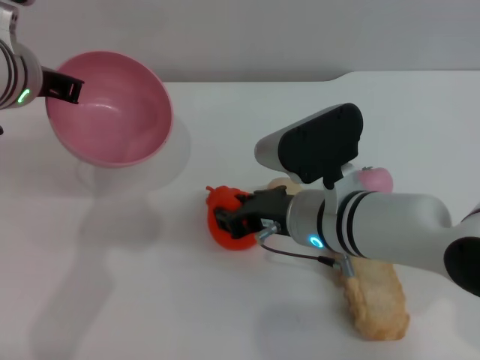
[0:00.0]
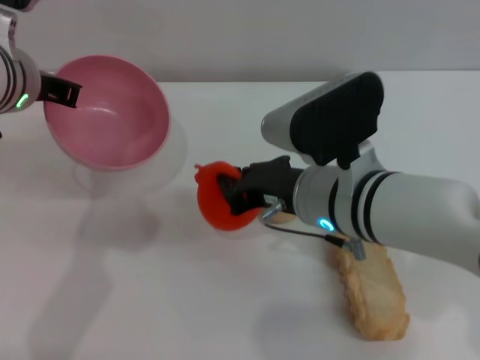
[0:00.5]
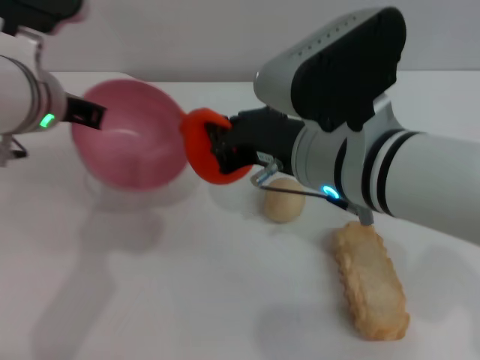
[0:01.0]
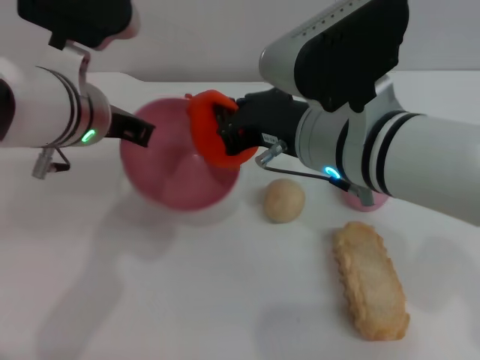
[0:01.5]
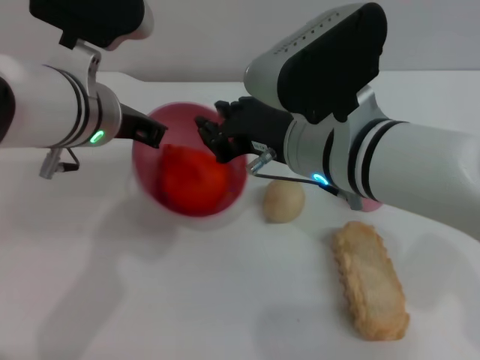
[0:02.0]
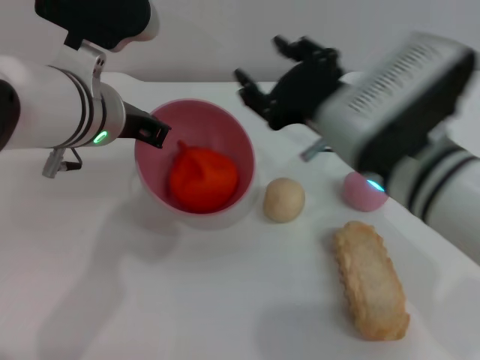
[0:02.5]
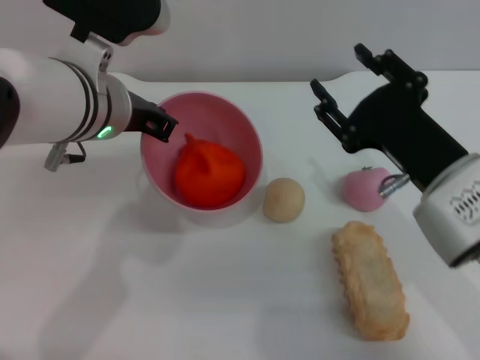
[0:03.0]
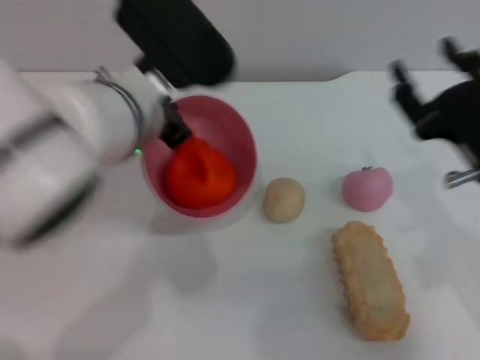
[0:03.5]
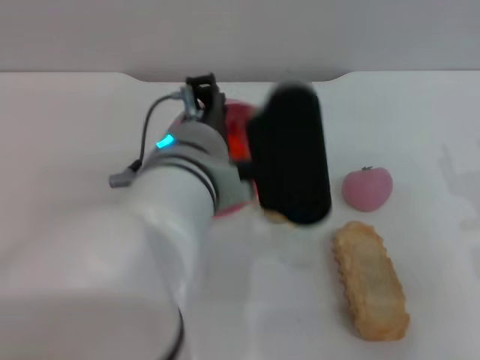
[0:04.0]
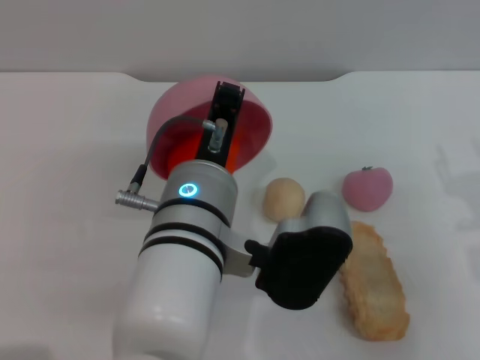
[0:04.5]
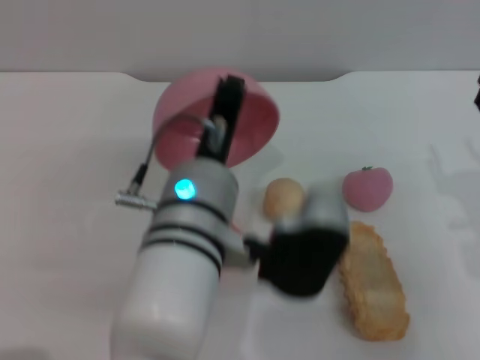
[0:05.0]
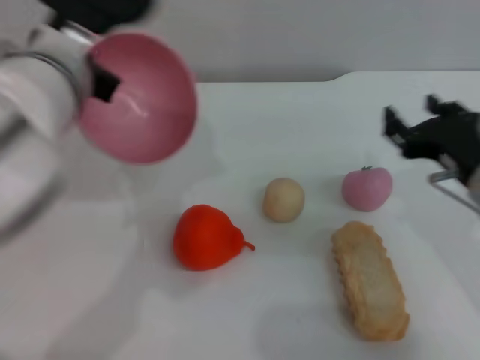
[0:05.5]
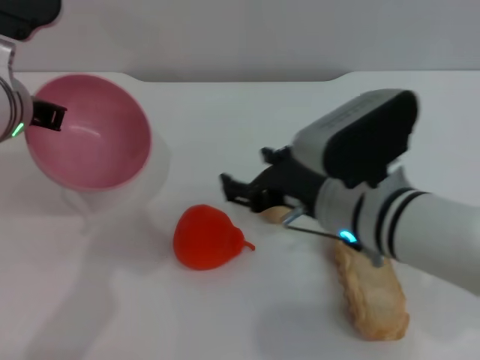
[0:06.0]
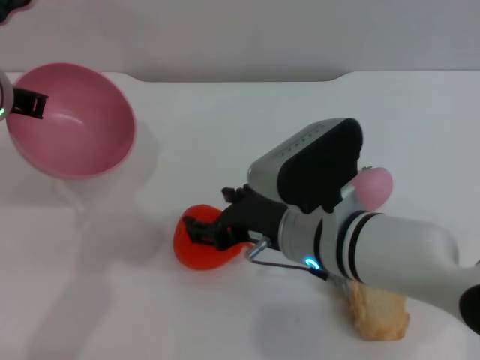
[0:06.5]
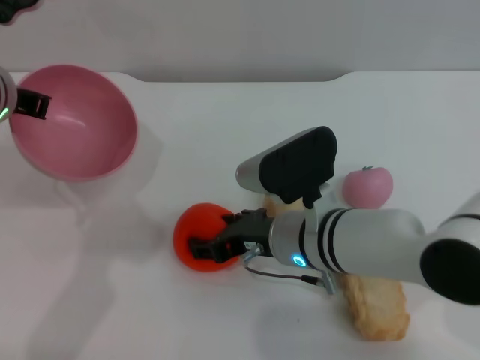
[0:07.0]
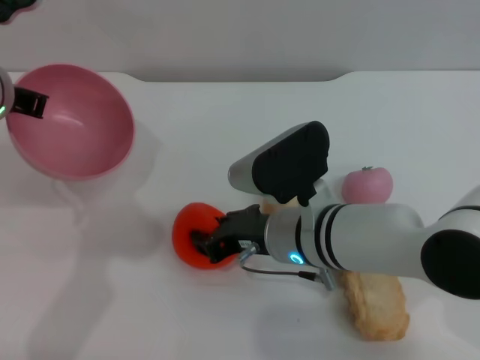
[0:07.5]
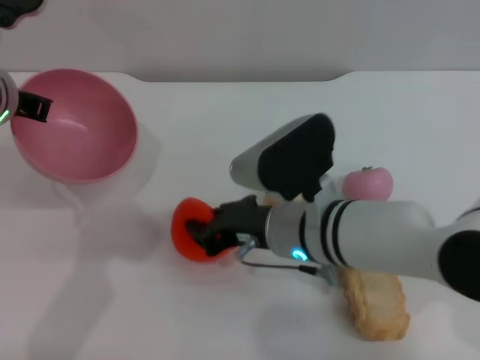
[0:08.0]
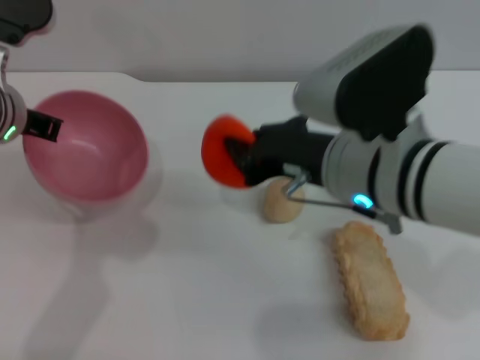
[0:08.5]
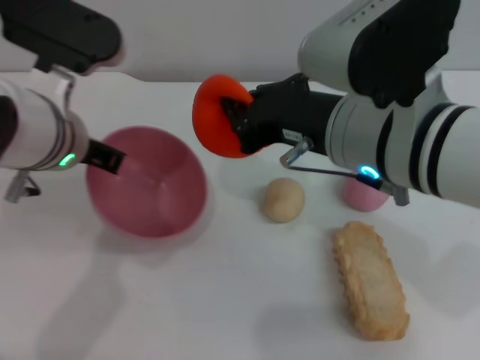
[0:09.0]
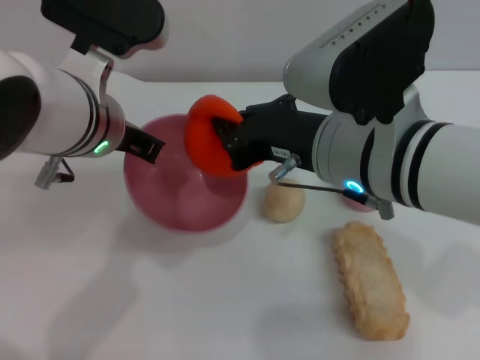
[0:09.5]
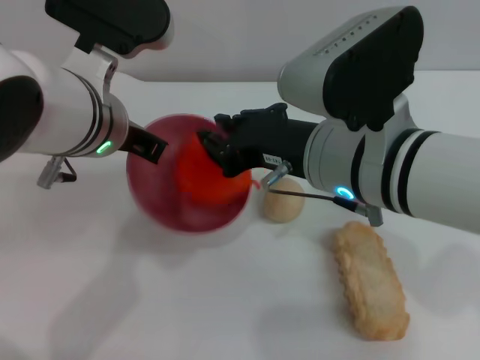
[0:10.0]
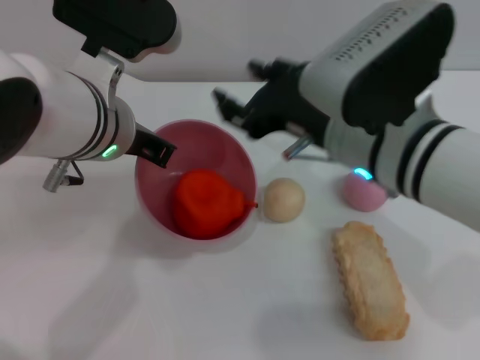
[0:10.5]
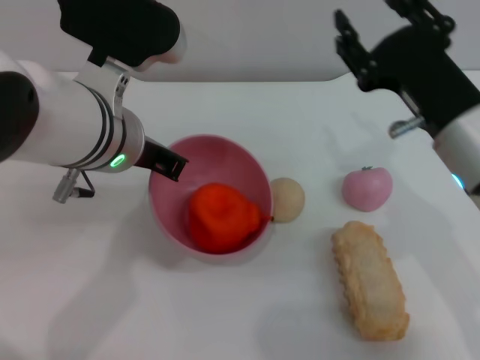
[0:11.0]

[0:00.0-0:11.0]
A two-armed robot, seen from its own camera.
Task of the whole recording: put the orange into the pink bowl and pour it out repeatedly.
Step, 0:01.0 to 0:02.5: Place the orange into the bowl.
Step, 0:03.0 to 0:05.0: Pour the orange out of the bowl.
Step, 0:05.5 to 0:08.0: Pick up the orange with the right gripper.
Step, 0:08.5 to 0:10.0: Place the bread into the bowl.
0:00.0 to 0:02.0: The left gripper ends up roughly 5 cm from where it was; the right gripper heads upward, covering about 10 cm, and closes up.
0:02.0 to 0:03.5: The left gripper changes place by roughly 5 cm; the right gripper heads to the right, covering some 15 cm, and opens its fingers.
0:03.5 to 0:05.5: The left gripper travels downward and back again, roughly 5 cm each way.
0:05.5 to 0:07.5: The right gripper travels to the left by about 15 cm. Meanwhile the left gripper heads to the left, covering approximately 10 cm.
0:07.5 to 0:09.0: The left gripper changes place by roughly 5 cm. Meanwhile the right gripper goes roughly 15 cm upward, and closes its fingers.
0:09.0 to 0:11.0: The right gripper goes about 10 cm to the right and downward, and opens its fingers.

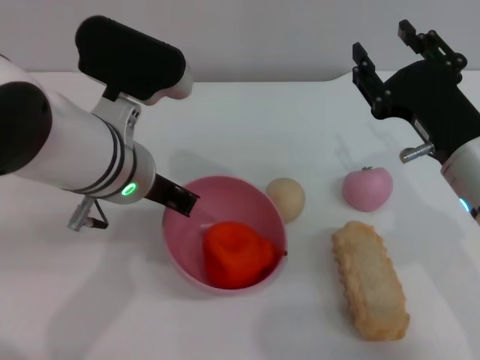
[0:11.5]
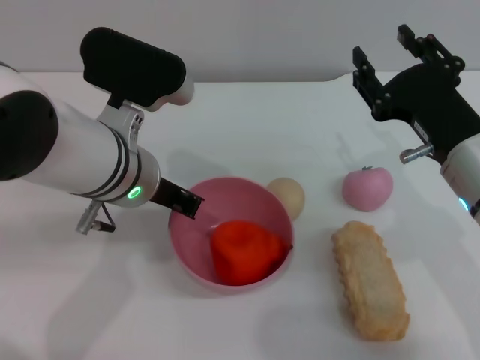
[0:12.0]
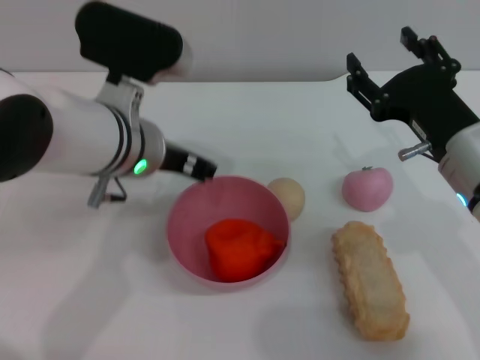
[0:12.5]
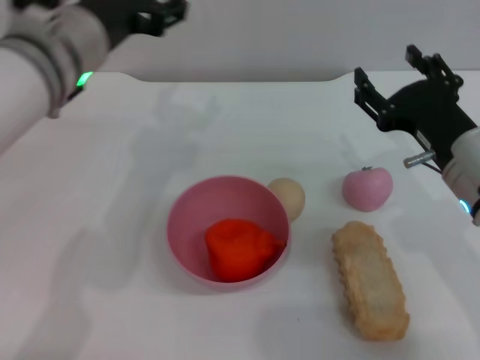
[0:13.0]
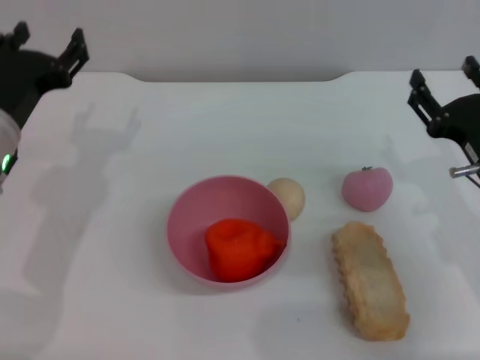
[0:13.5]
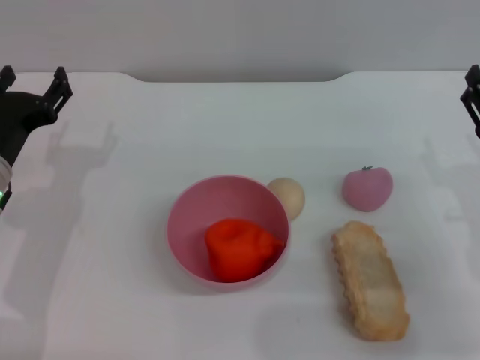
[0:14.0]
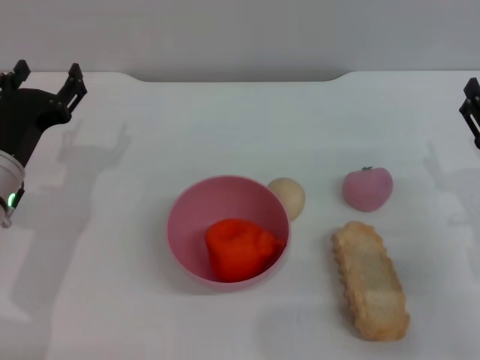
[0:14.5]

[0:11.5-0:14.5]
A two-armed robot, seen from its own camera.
Task of the whole recording: put the orange into the pink bowl and pour it out repeatedly.
0:11.5 to 0:13.0: The left gripper moves about 5 cm, and opens.
0:13.0 to 0:14.5: The right gripper is displaced to the right by about 5 cm; the left gripper heads downward and to the left, covering approximately 15 cm.
